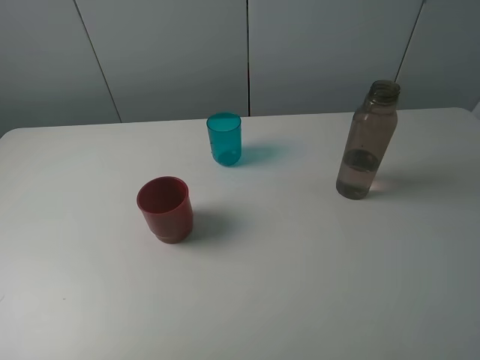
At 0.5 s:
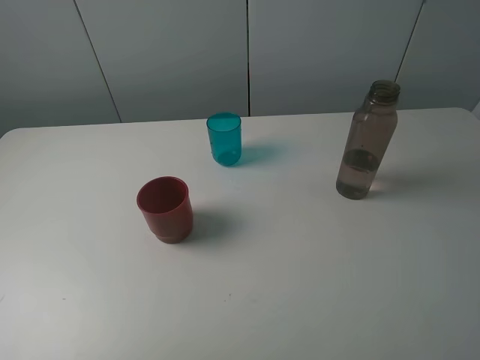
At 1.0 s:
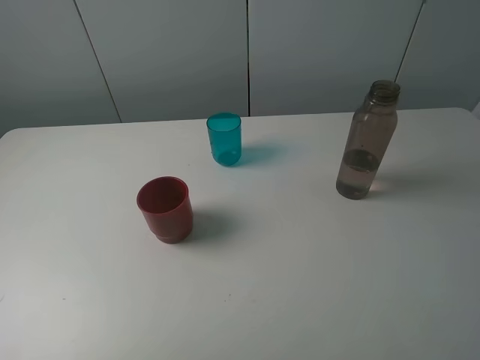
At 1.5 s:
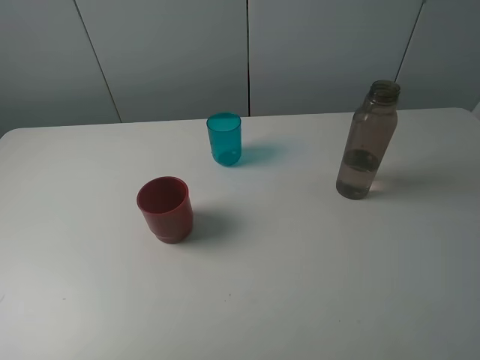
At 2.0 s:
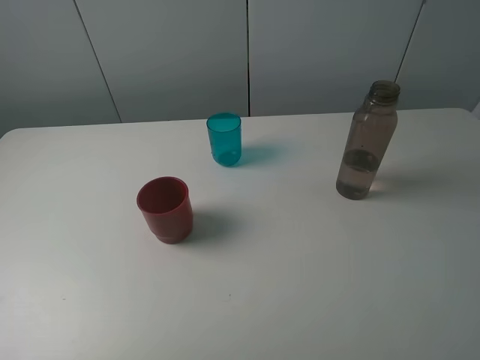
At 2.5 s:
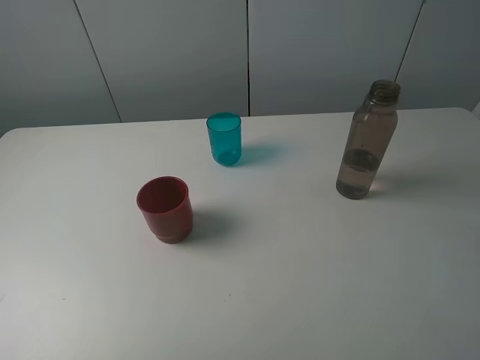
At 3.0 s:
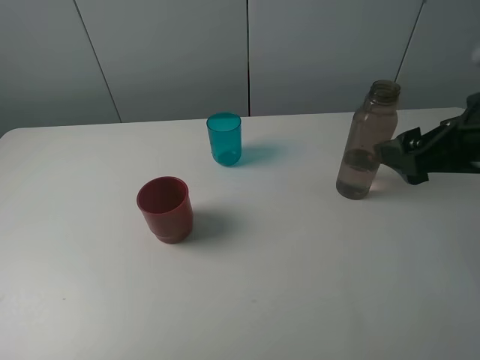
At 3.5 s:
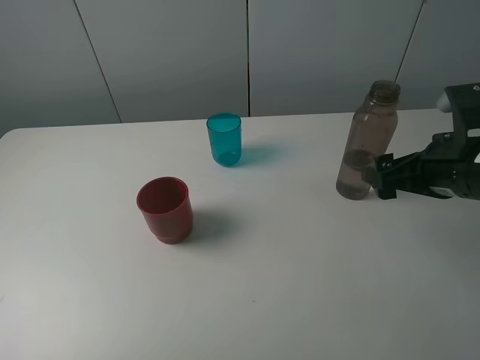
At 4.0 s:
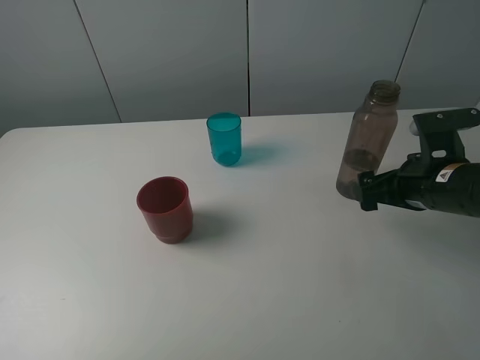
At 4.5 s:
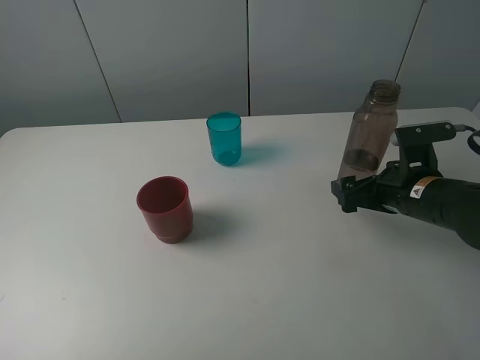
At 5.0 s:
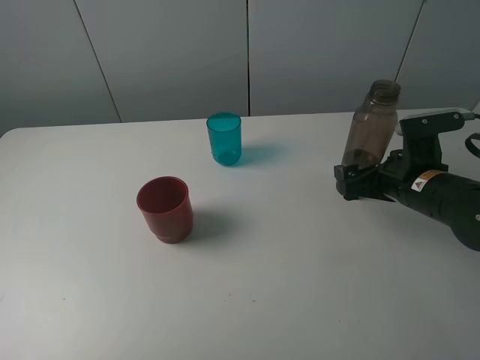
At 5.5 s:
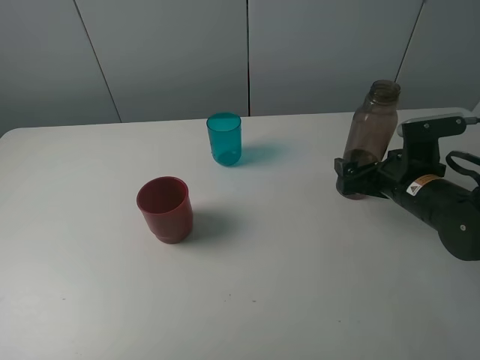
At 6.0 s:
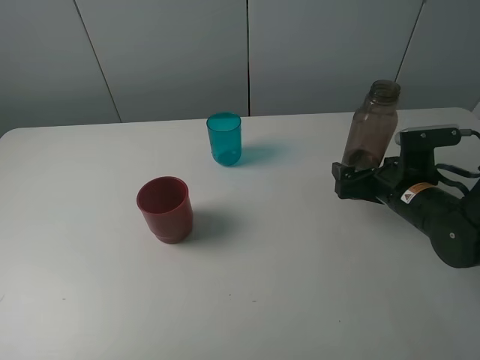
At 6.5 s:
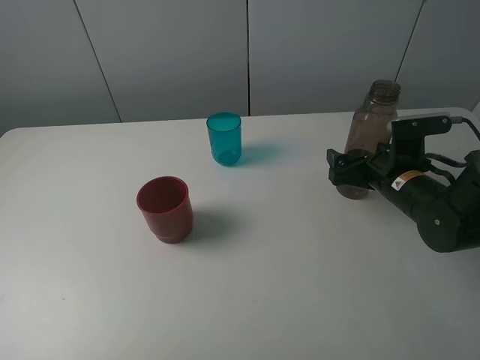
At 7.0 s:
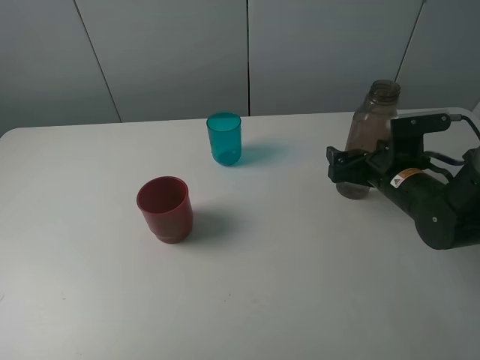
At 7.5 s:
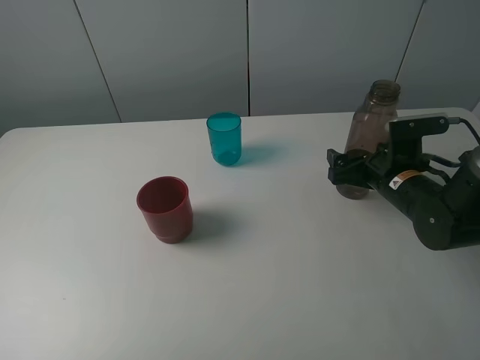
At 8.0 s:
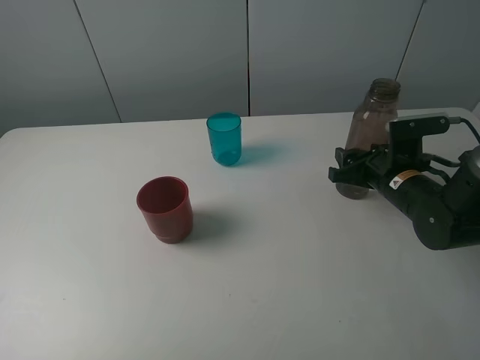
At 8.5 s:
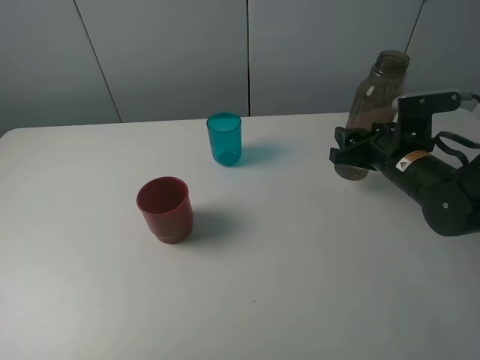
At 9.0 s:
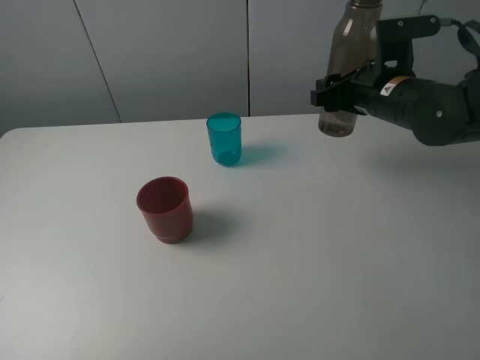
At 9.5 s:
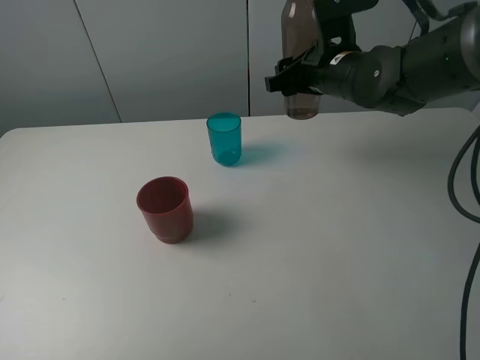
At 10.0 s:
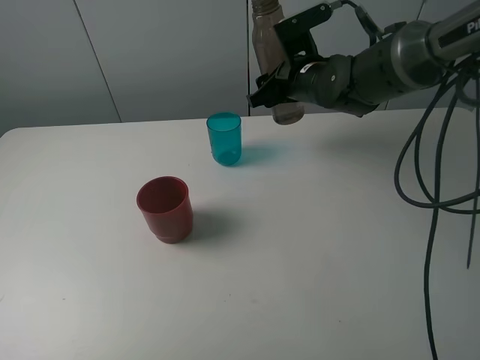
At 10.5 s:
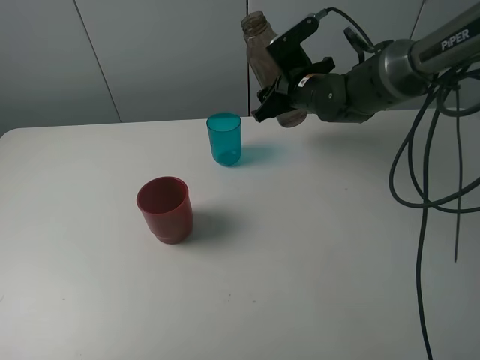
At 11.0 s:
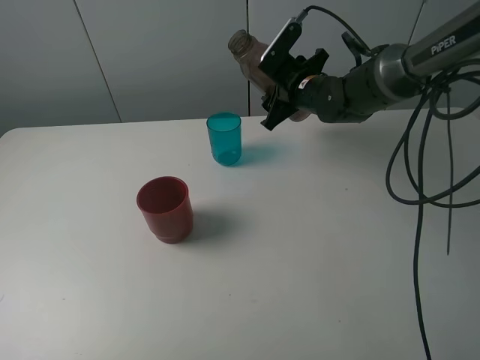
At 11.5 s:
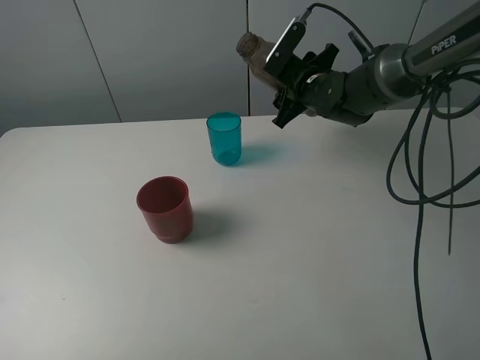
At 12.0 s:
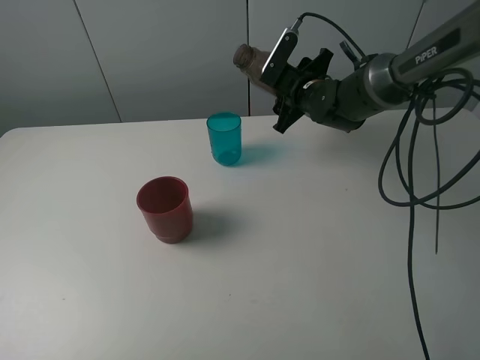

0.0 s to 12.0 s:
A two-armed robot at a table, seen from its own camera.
Task of the whole recording: pick up the bottle and pour water into the cup, then pick up the cup containing water and pour it into another cup.
Step, 0.0 to 8.0 s: Grasp the brown bottle with the right gripper.
2.0 to 4.0 s: The right gripper is displaced downward and forward by roughly 30 cm.
4.0 to 6.0 s: The right gripper moves downward, roughly 5 cm.
6.0 to 8.0 s: The right gripper closes up.
8.0 to 10.0 s: The right gripper moves to the left, forward and upward, roughly 20 cm.
10.0 to 12.0 s: The right gripper ends up approximately 5 cm from where it was.

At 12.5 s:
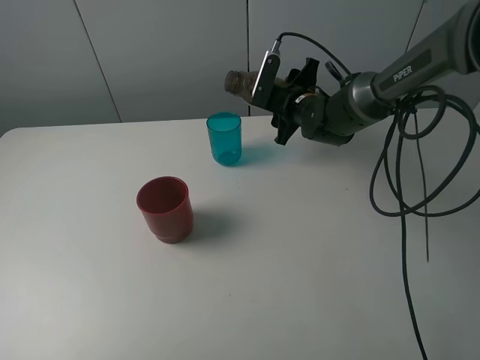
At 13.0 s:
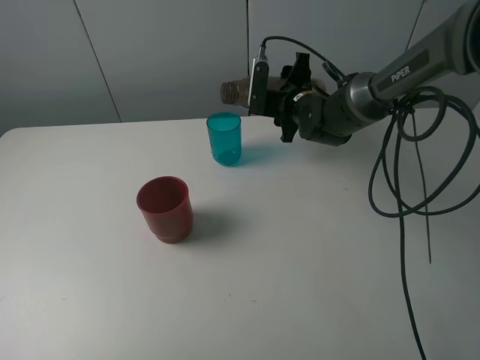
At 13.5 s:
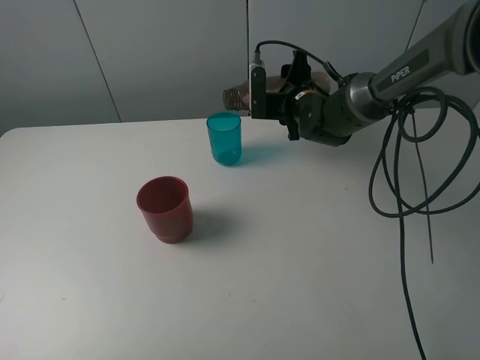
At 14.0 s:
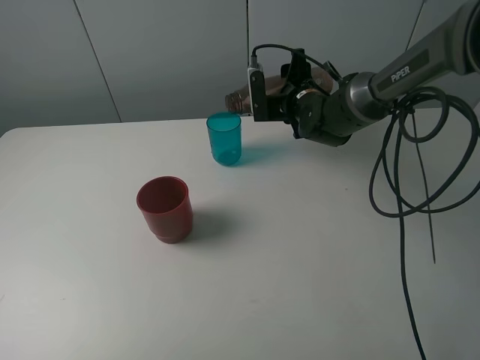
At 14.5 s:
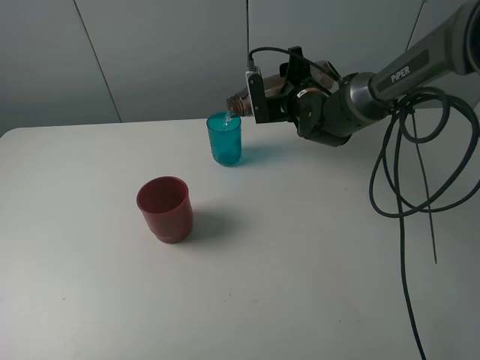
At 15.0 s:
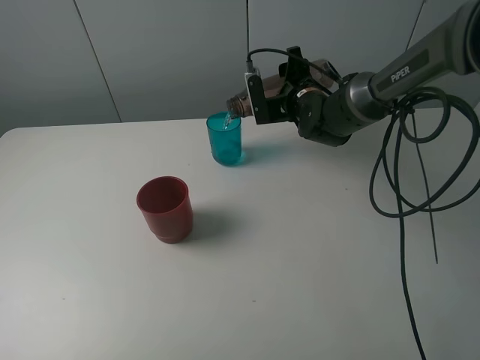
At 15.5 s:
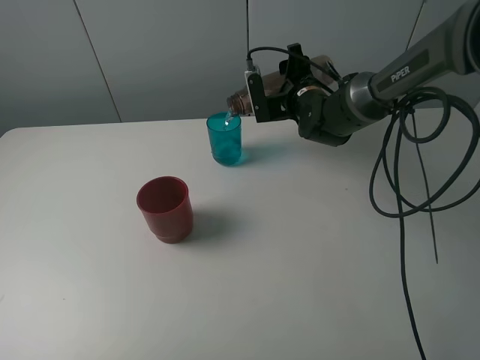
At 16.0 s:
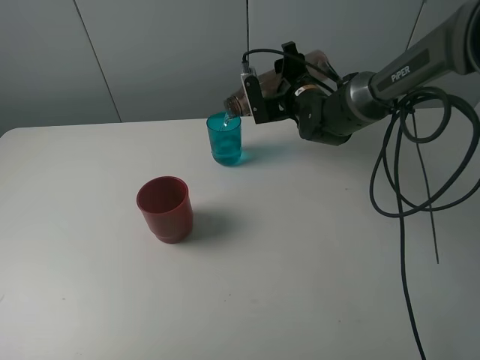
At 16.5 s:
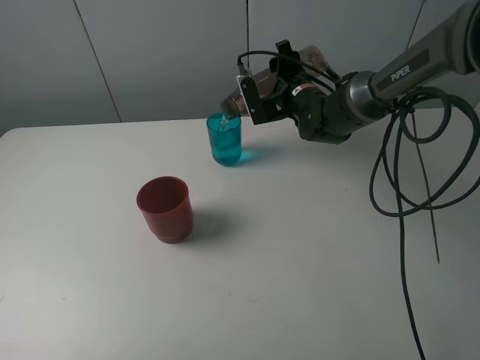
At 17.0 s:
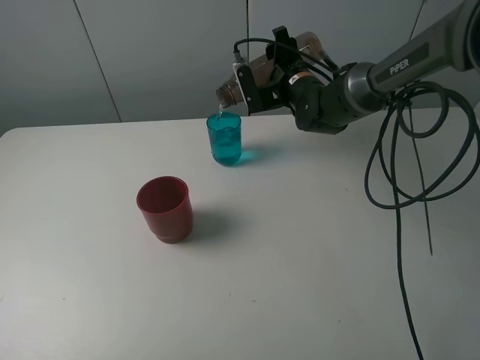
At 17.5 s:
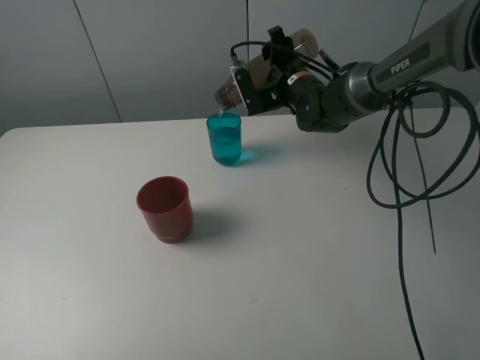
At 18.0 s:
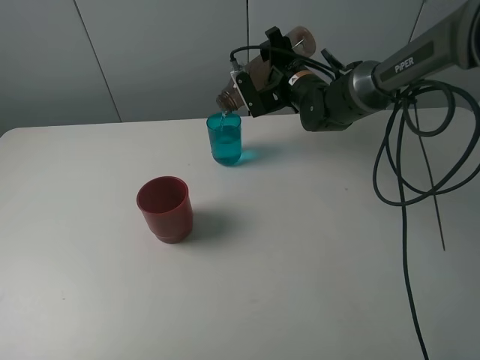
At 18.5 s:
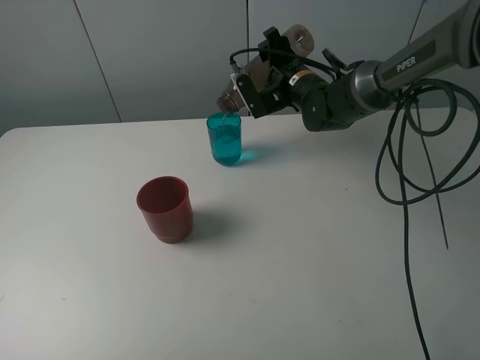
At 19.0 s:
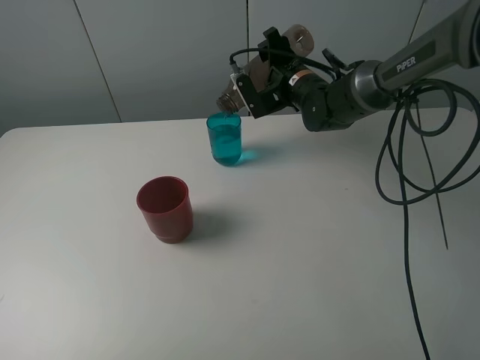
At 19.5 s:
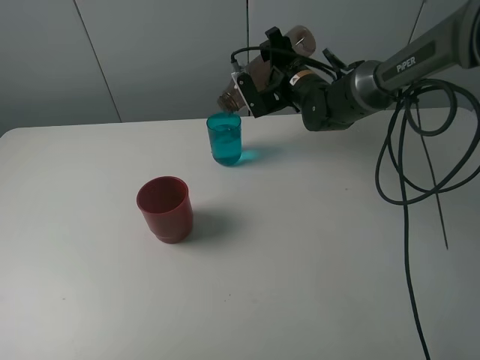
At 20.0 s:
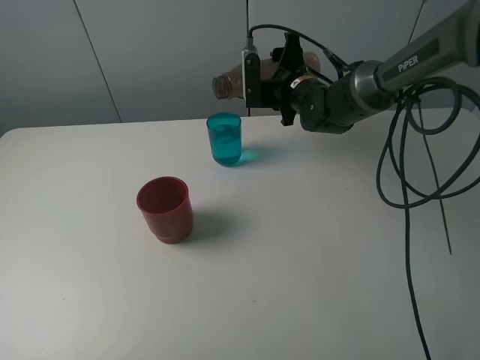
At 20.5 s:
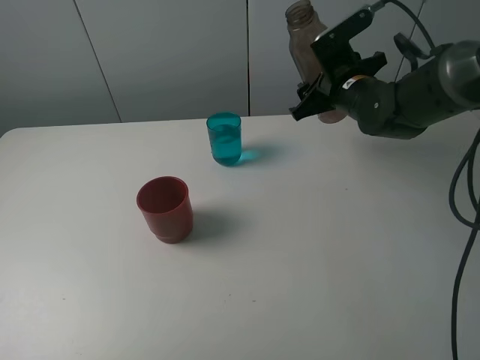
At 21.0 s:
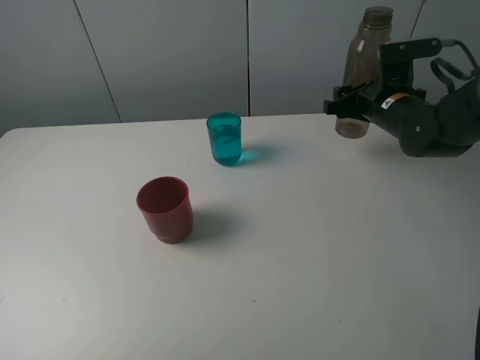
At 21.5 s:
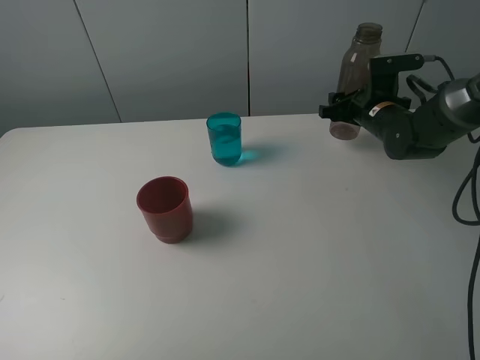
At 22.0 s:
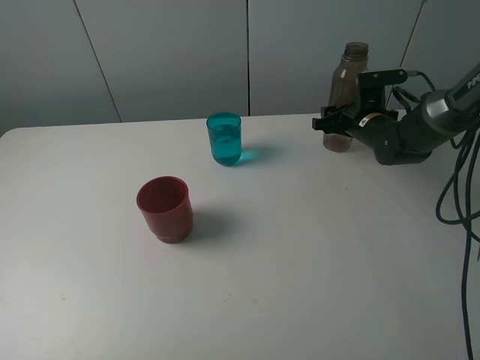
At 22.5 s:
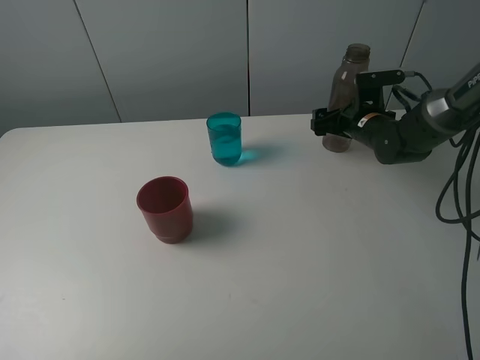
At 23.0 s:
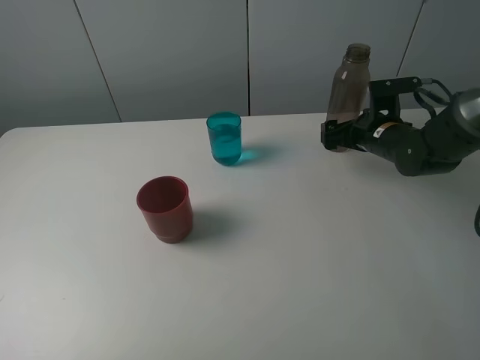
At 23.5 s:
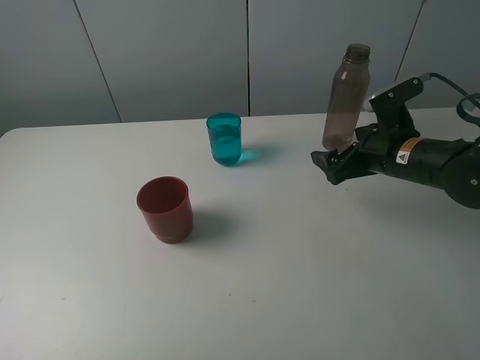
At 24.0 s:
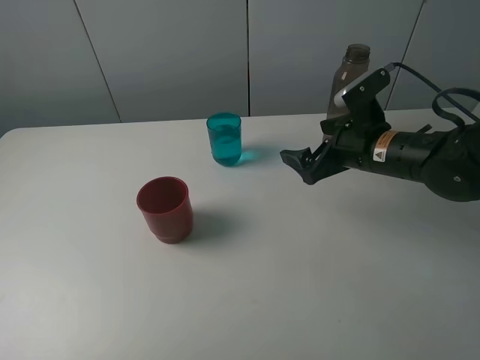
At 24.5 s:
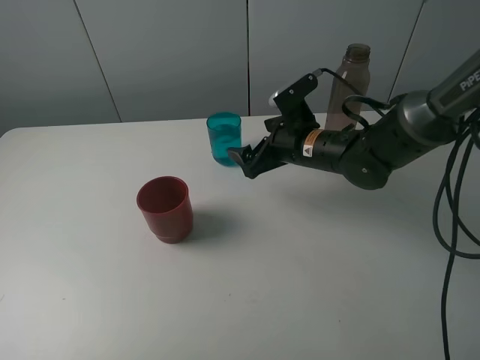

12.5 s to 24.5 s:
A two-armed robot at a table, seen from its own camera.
Task of the whole recording: pick up the bottle and pour water into the cup, then pick up the cup containing water and pour it into another cup.
Step, 12.5 to 19.0 s: Pour water from brown bottle to blue cup with the right gripper.
Step, 19.5 to 22.5 s: Place the brown bottle with the right gripper.
14.5 to 16.5 s: The grippers move only a little.
16.5 to 18.5 s: The grippers make only small movements.
18.5 to 20.5 s: The right gripper heads backward and to the right, covering some 10 cm.
20.5 to 22.5 s: The right gripper shifts roughly 10 cm downward and to the right, and opens.
22.5 to 24.5 s: The right gripper heads to the left and backward, covering about 15 cm.

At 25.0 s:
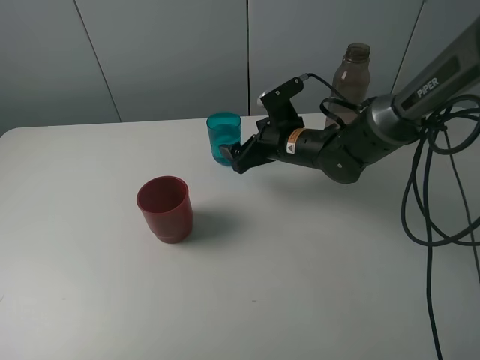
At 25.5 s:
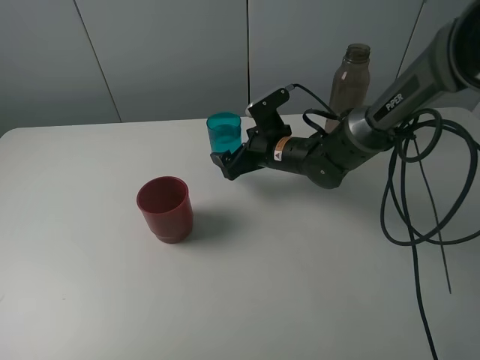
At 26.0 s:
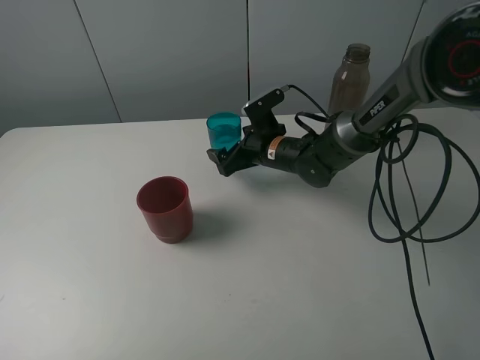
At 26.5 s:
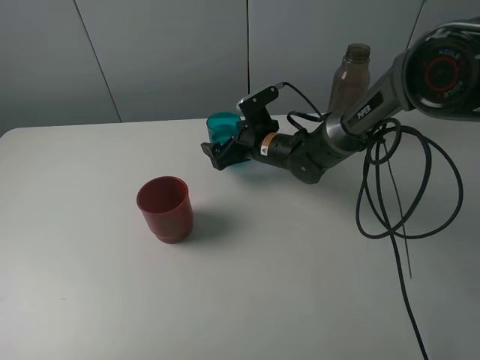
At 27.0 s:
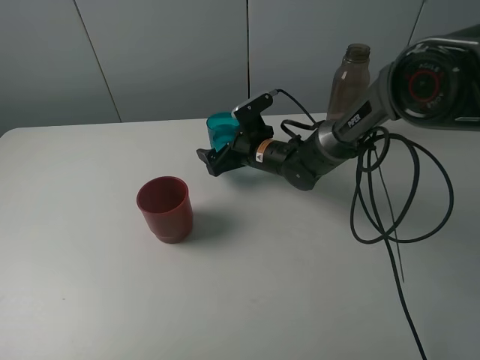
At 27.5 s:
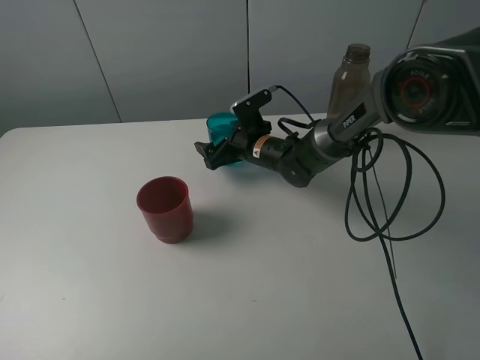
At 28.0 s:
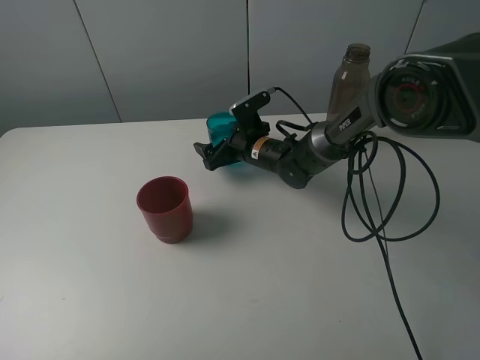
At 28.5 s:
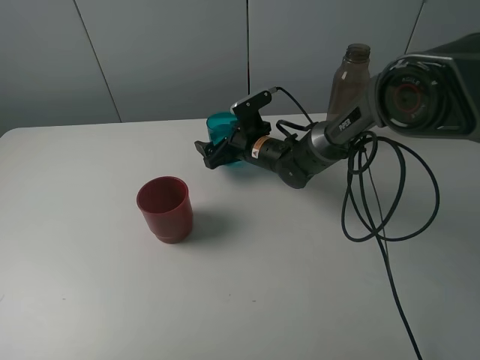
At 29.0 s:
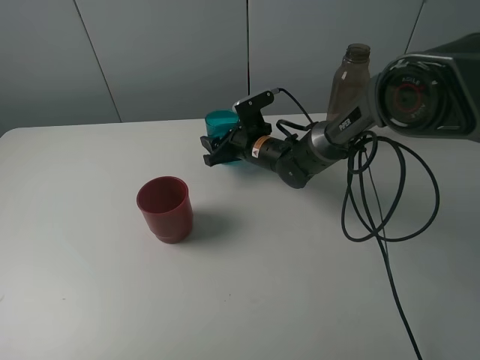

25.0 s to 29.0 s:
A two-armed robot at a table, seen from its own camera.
Task of the whole recording: pick up the bottle and pour water into the cup, then pick up the cup containing water and pour it into another cup.
25.0 to 27.0 s: The right gripper travels downward by about 5 cm.
27.0 to 29.0 s: The right gripper closes.
